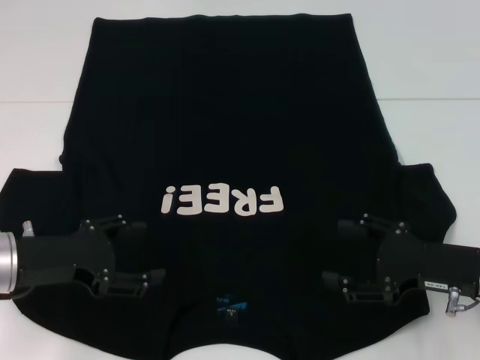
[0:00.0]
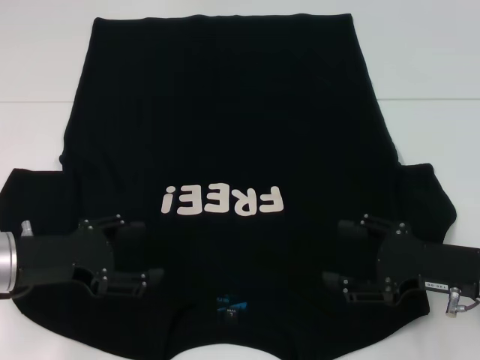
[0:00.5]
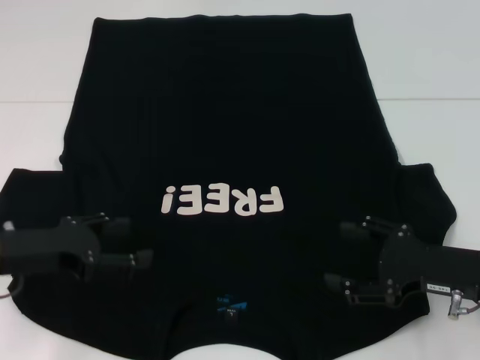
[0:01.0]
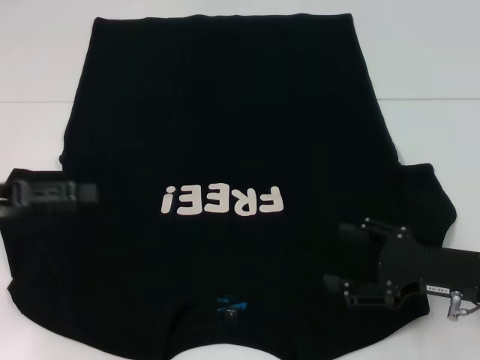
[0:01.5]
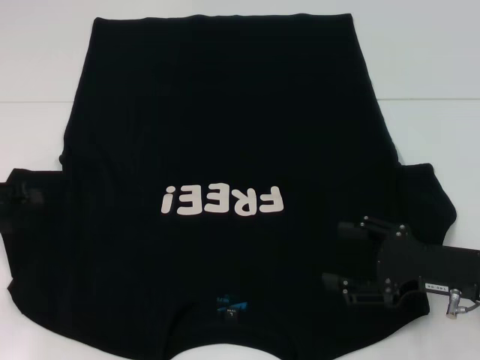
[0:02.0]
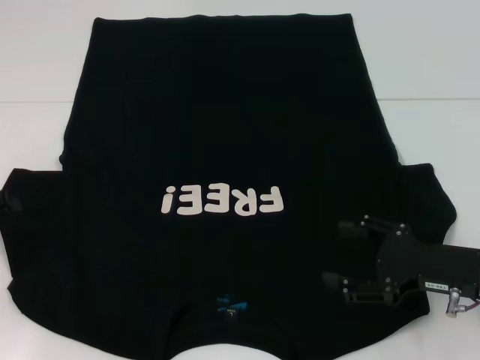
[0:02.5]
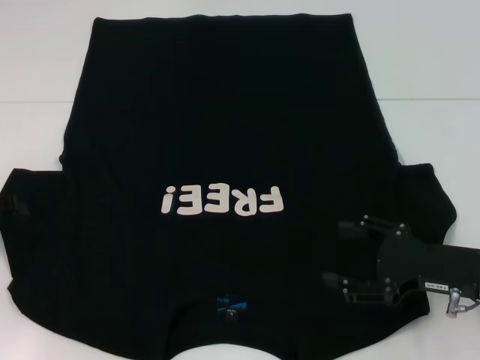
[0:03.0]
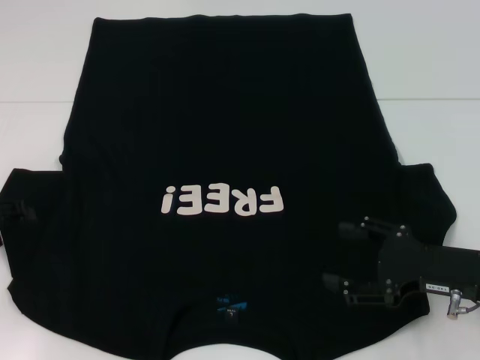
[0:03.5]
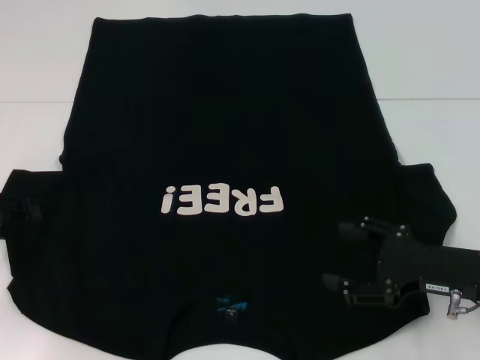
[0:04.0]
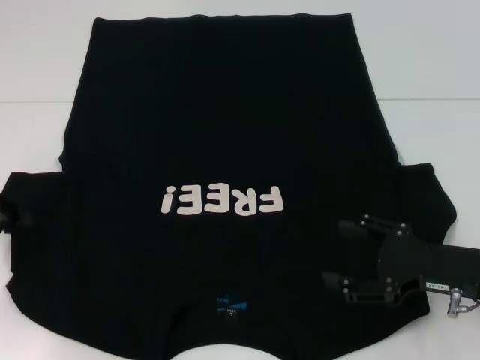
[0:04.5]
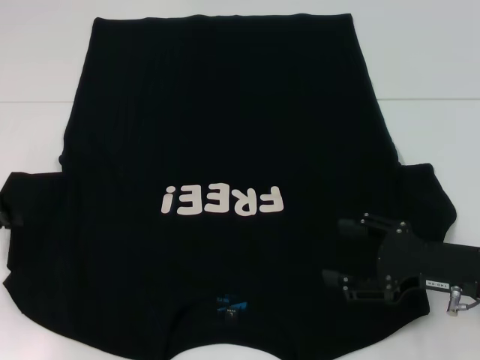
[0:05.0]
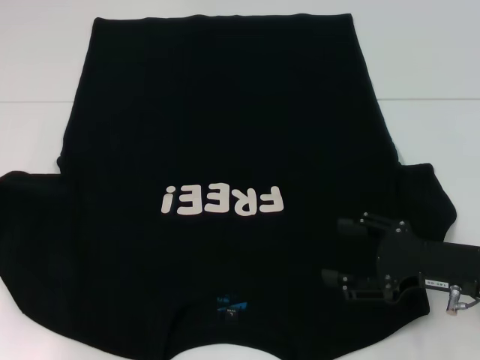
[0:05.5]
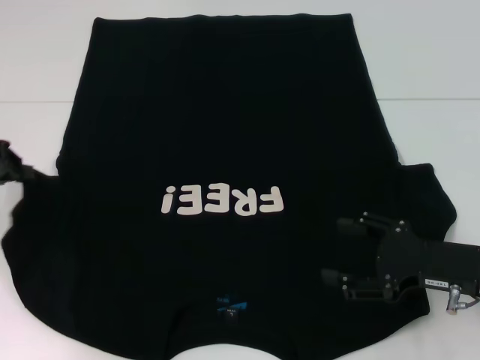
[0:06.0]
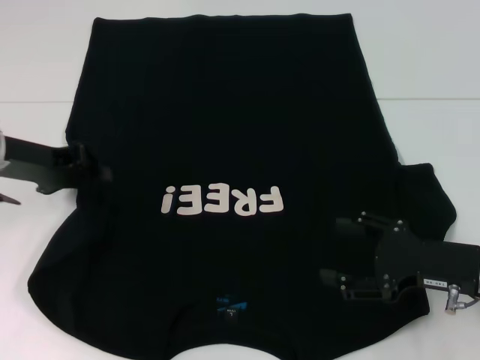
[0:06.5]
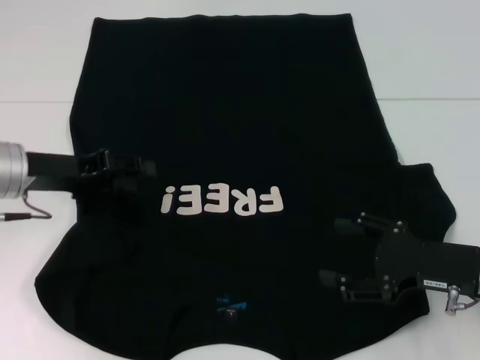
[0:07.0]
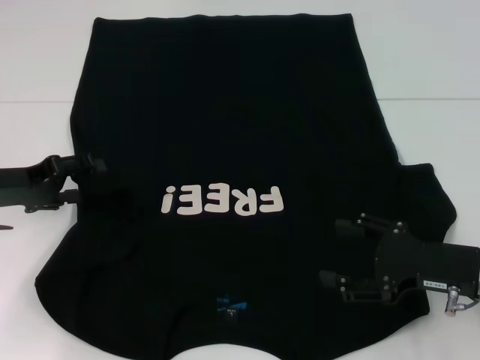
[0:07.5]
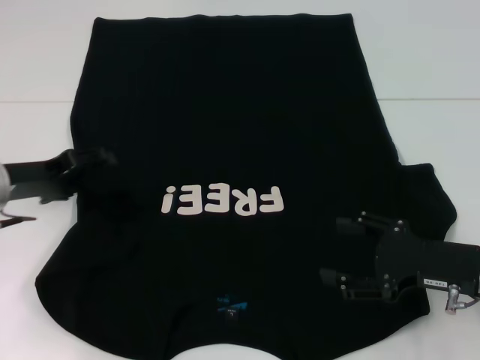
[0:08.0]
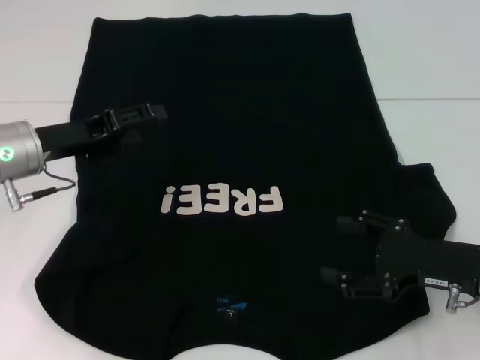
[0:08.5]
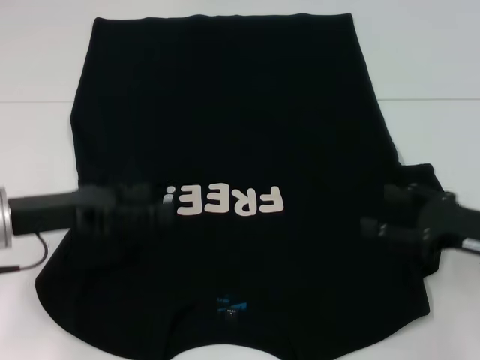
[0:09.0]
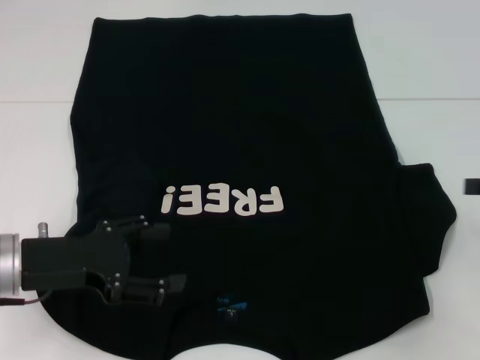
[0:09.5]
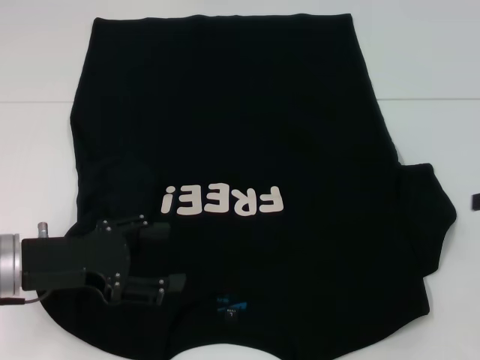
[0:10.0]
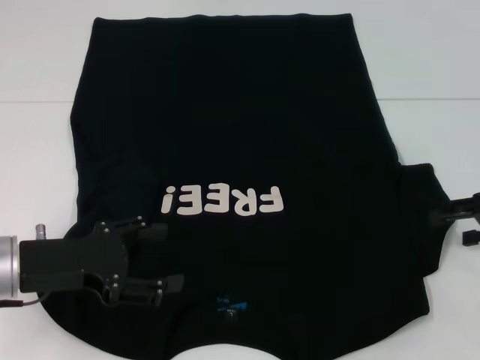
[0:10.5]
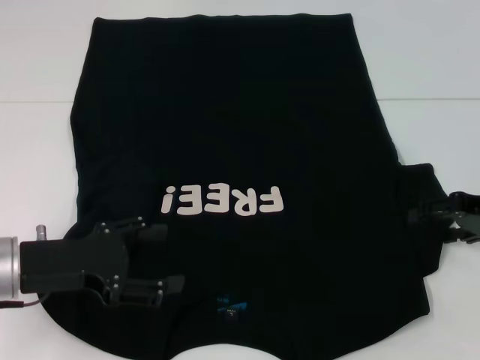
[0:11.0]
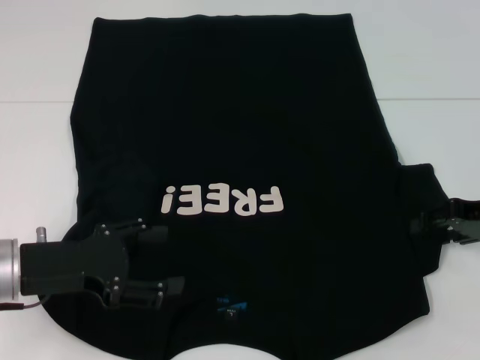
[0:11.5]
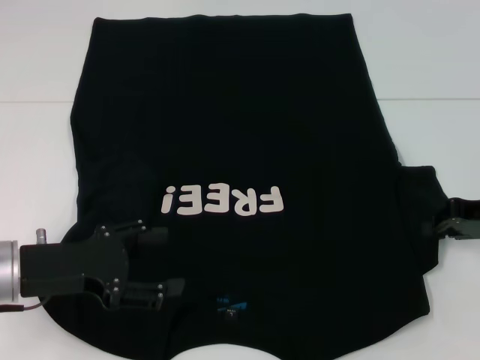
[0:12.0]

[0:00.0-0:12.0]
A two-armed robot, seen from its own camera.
Step, 0.0 to 7.0 s: Fold the bottom left sleeve with your left hand.
0.0 to 2.0 s: The left gripper goes approximately 10 cm to the left and upward.
4.0 to 6.0 s: The left gripper travels upward by roughly 5 cm, and closes.
6.0 to 8.0 s: The left gripper goes some 10 cm downward and to the right, and opens.
8.0 to 10.0 s: The right gripper heads to the right, upward and forward, covering some 15 cm. The left gripper goes some 10 cm backward.
10.0 to 12.0 s: The right gripper shifts approximately 5 cm to the left, and closes.

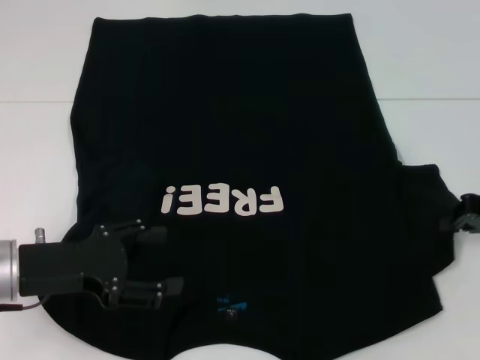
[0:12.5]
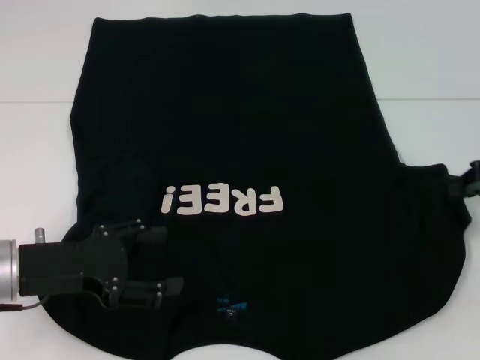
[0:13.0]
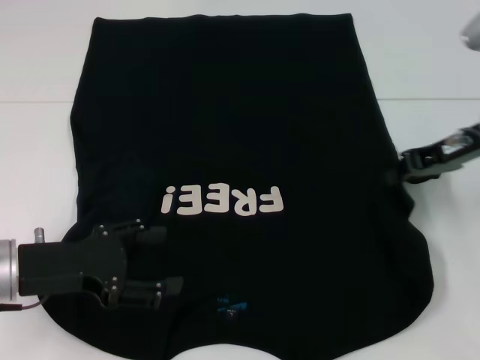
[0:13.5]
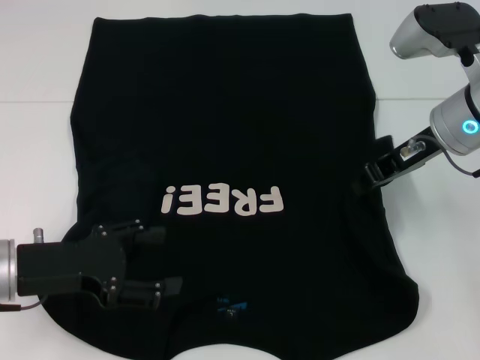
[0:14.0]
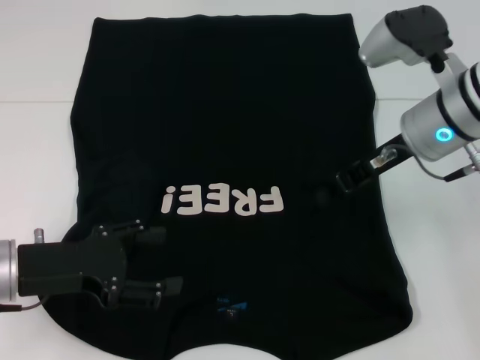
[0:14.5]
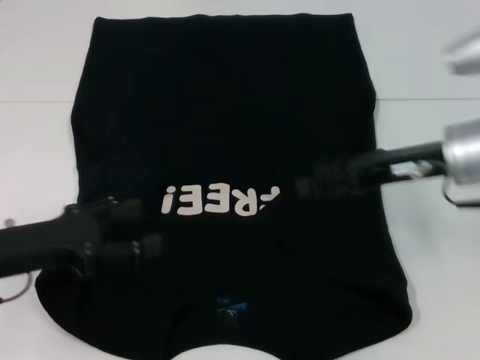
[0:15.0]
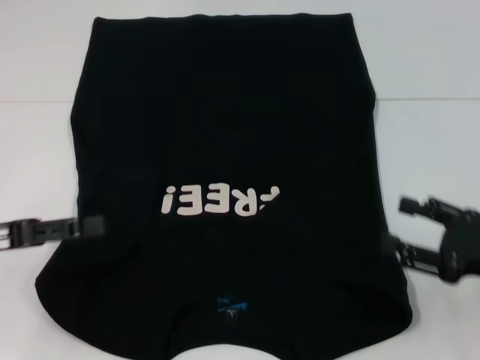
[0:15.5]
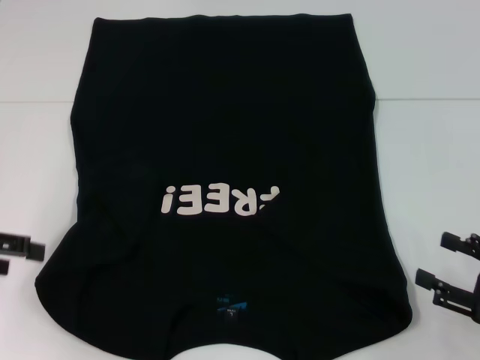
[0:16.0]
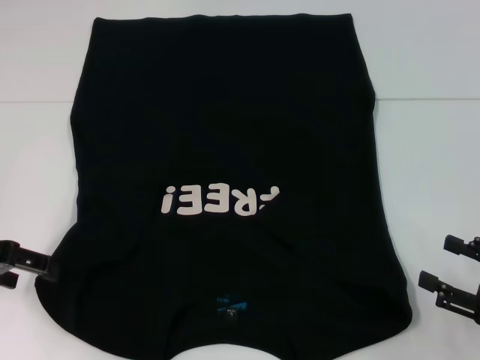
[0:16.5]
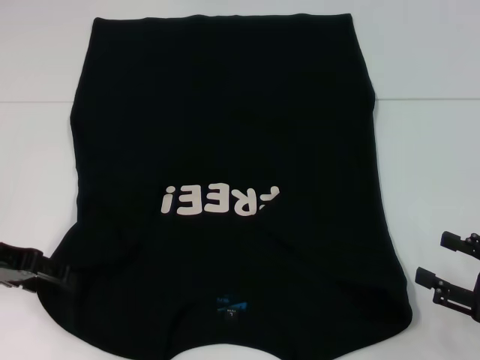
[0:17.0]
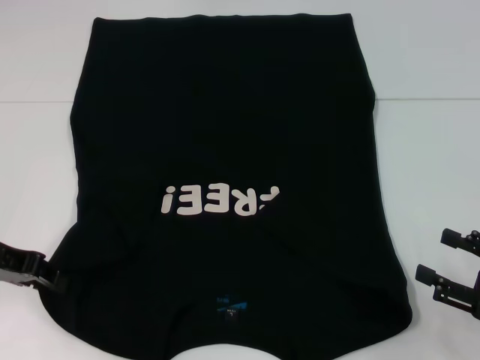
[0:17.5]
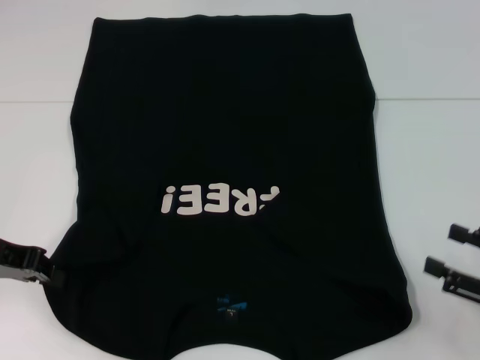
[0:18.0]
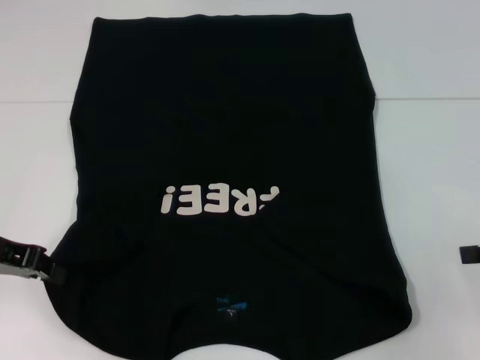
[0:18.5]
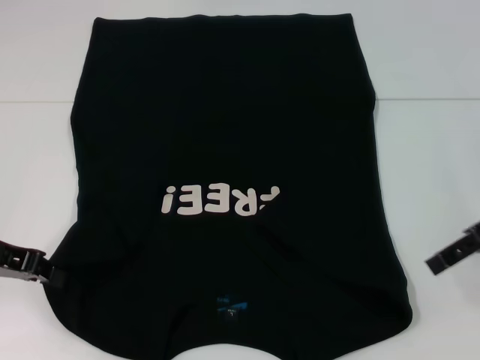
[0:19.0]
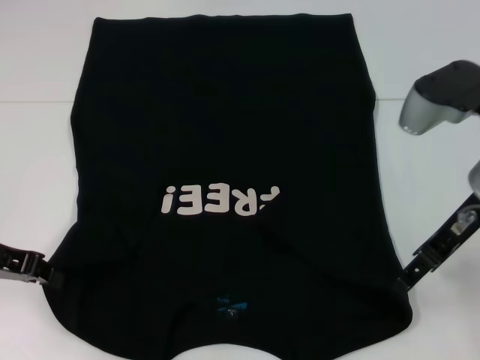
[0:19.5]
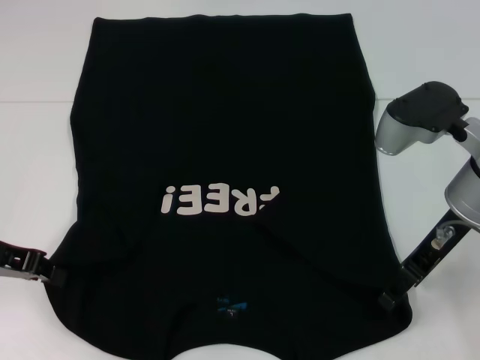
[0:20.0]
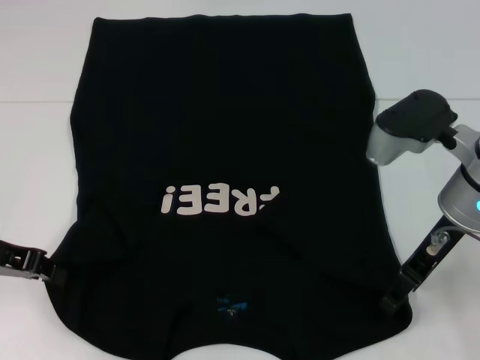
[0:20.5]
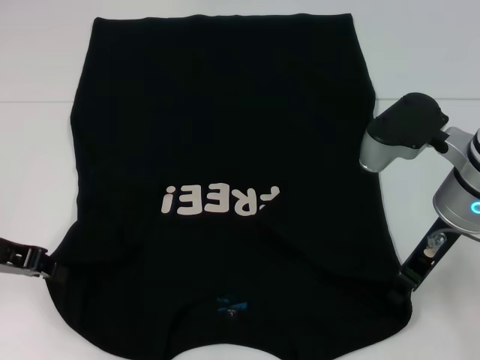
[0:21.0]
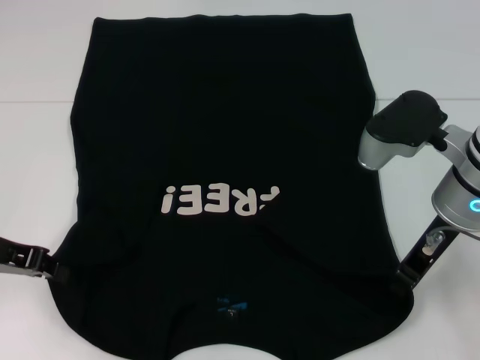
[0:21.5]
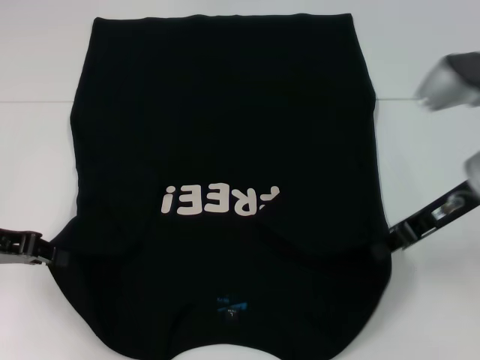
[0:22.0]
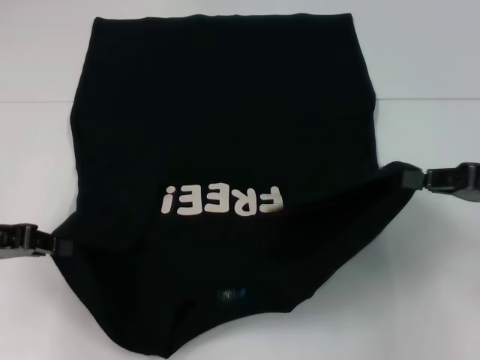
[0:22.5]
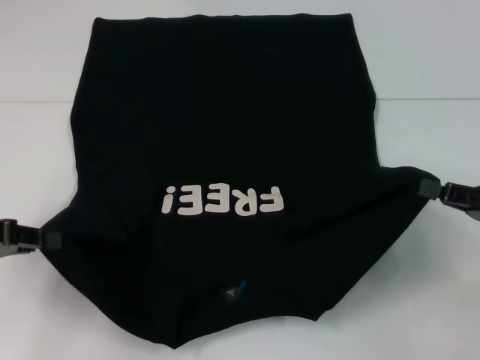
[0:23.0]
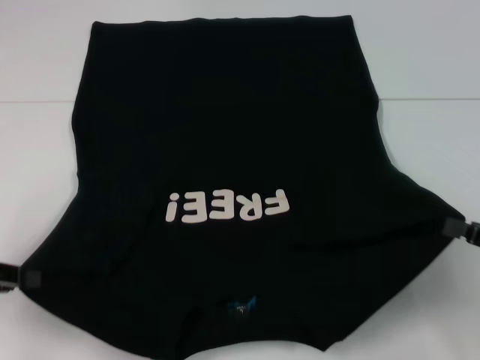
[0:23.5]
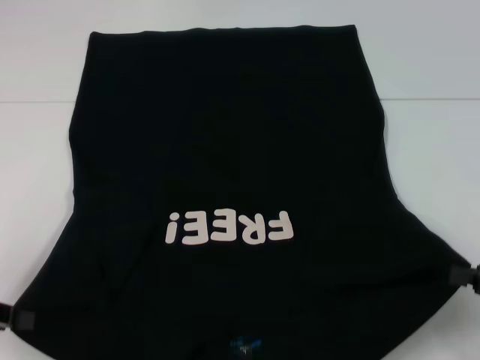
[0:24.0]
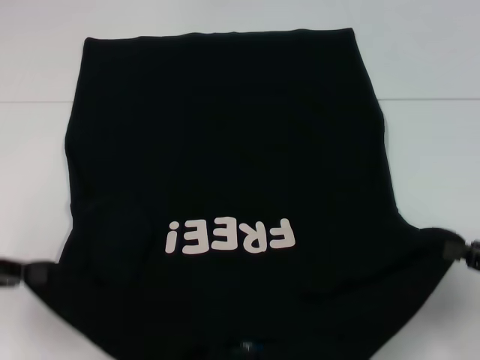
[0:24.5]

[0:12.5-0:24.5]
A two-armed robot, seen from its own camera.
Step, 12.5 to 15.0 s: Fold the bottom right sleeve with your right hand.
Step, 15.5 to 18.5 s: Grab the bottom left corner with your left hand.
Step, 19.0 to 21.5 s: Grab the bottom right corner with your right hand.
12.5 to 14.5 s: The right gripper is displaced to the left by about 15 cm.
14.5 to 16.5 s: The right gripper travels backward, to the right and downward by some 30 cm, and opens up. The left gripper is displaced to the left and upward by about 10 cm.
16.5 to 18.5 s: The right gripper travels upward and forward by roughly 15 cm. Meanwhile the left gripper closes its fingers.
18.5 to 20.5 s: The right gripper heads to the left, covering about 20 cm.
20.5 to 22.5 s: The right gripper moves to the right, about 15 cm, and closes up.
22.5 to 24.5 s: The left gripper moves about 5 cm. The right gripper moves backward and downward, approximately 10 cm.

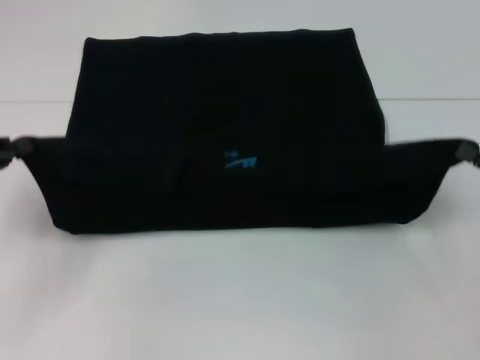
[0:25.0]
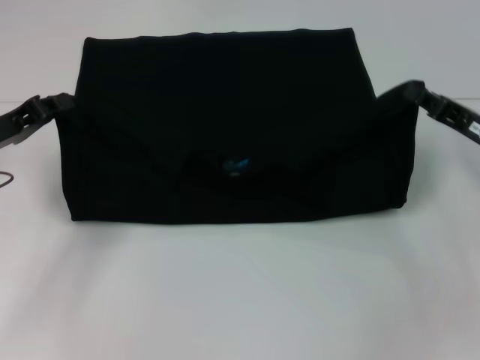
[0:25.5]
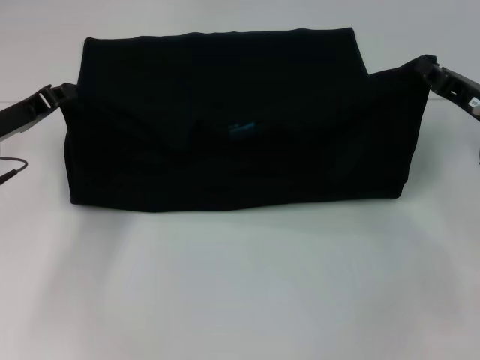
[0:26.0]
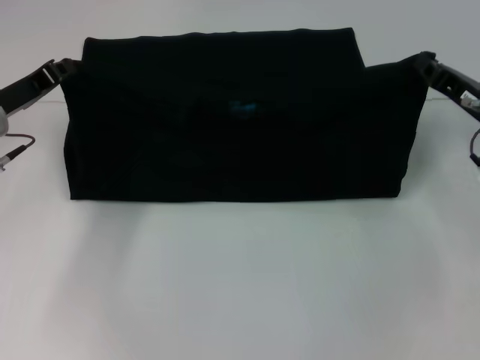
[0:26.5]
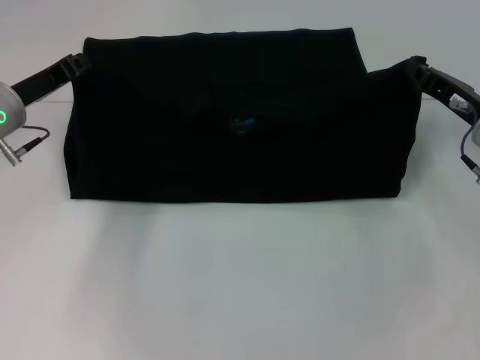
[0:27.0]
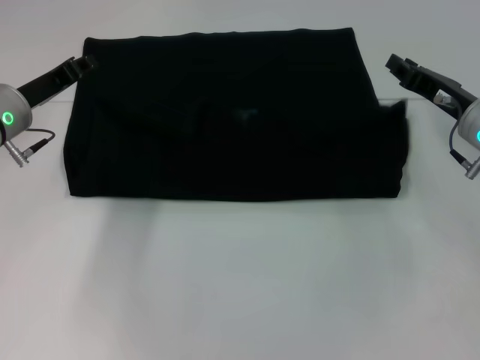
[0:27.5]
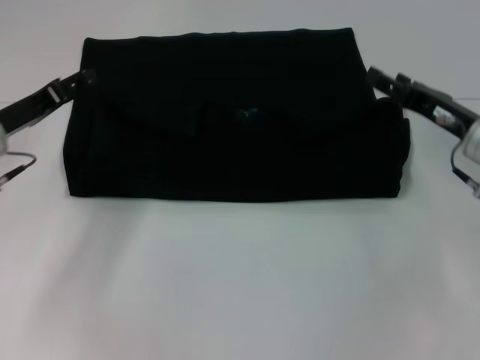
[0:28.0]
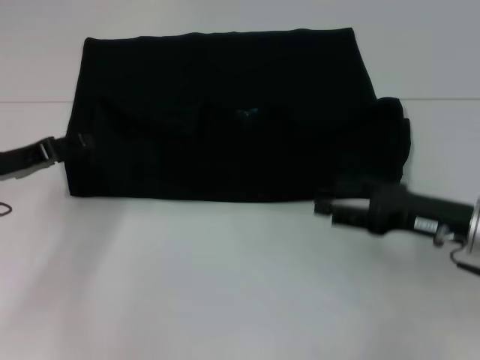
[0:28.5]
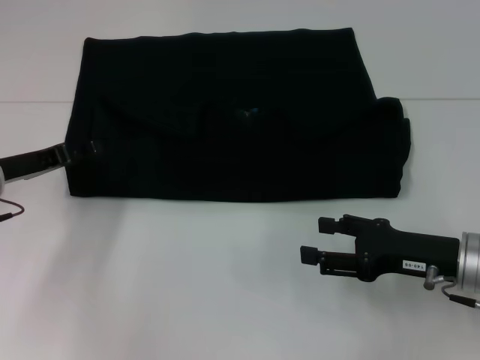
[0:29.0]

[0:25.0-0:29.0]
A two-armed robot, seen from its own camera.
Step, 25.0 to 27.5 s: Fold the clothes with your left hand.
Step, 25.0 to 27.5 s: Fold the clothes with your right hand.
25.0 to 27.0 s: The right gripper goes about 15 cm forward and to the left. Meanwhile the left gripper moves forward and to the right, roughly 15 cm.
27.0 to 29.0 s: The left gripper ends up roughly 5 cm from where it was, and opens up. Meanwhile the right gripper shifts approximately 10 cm backward, and opens up.
